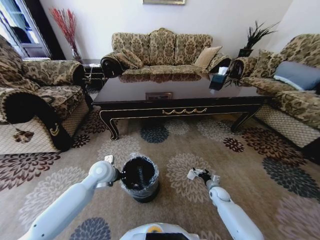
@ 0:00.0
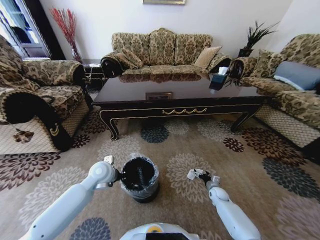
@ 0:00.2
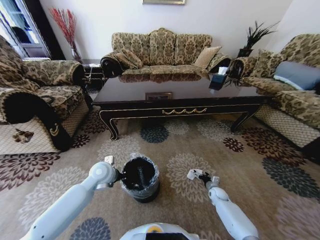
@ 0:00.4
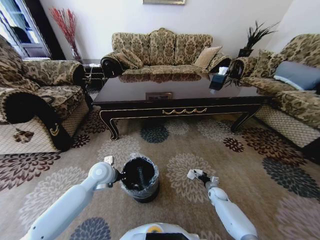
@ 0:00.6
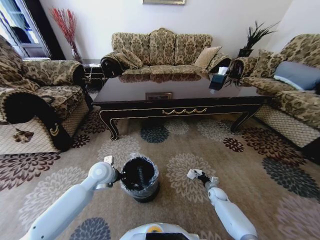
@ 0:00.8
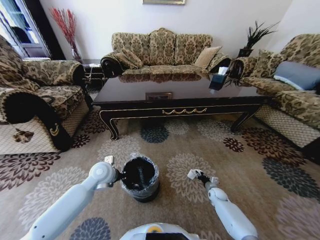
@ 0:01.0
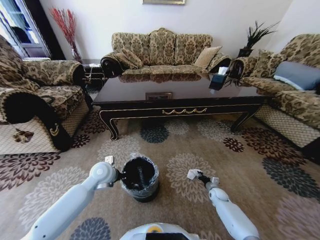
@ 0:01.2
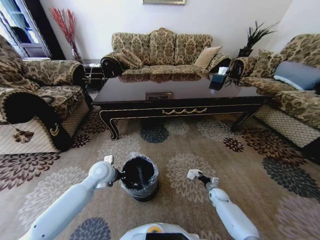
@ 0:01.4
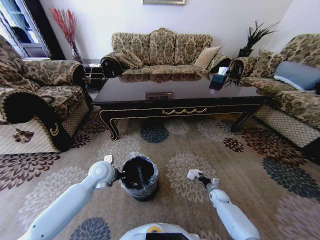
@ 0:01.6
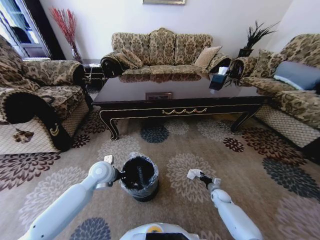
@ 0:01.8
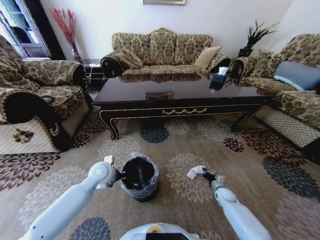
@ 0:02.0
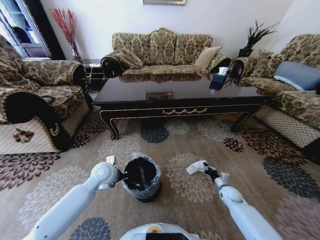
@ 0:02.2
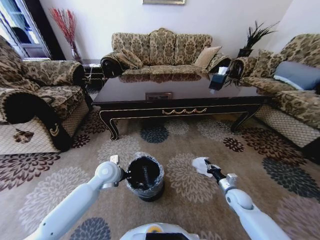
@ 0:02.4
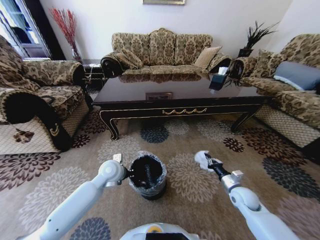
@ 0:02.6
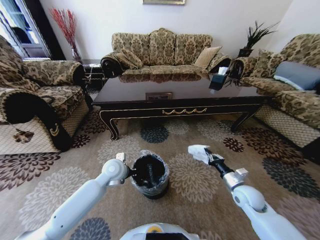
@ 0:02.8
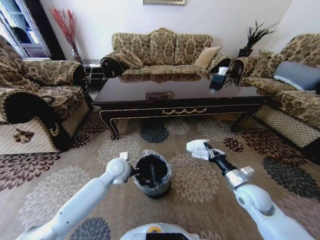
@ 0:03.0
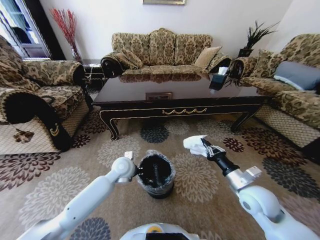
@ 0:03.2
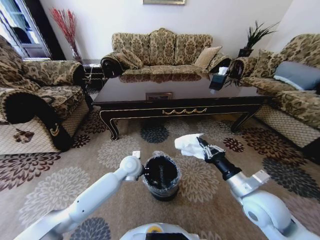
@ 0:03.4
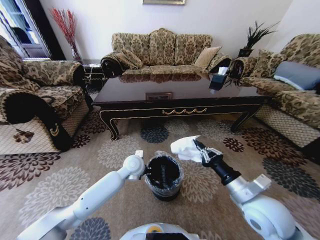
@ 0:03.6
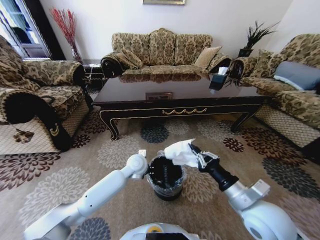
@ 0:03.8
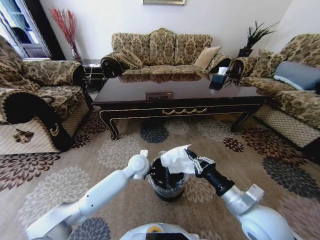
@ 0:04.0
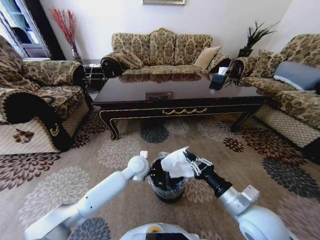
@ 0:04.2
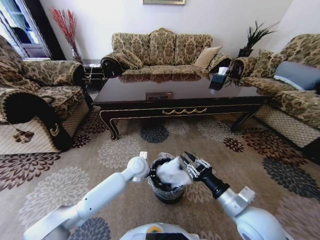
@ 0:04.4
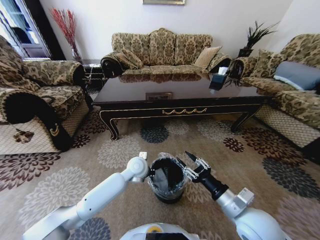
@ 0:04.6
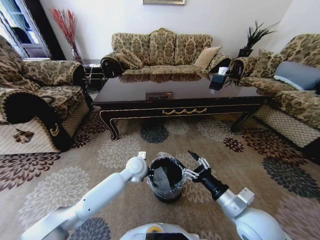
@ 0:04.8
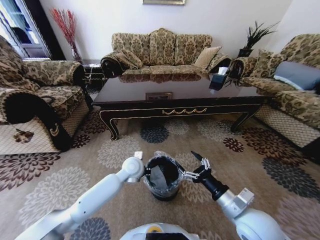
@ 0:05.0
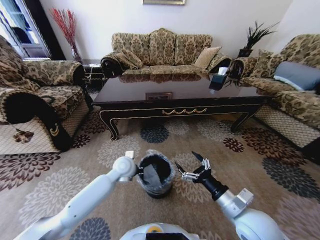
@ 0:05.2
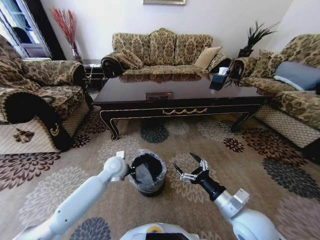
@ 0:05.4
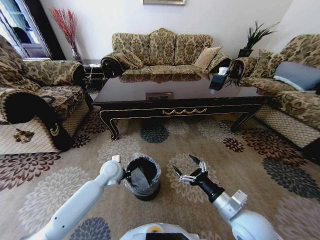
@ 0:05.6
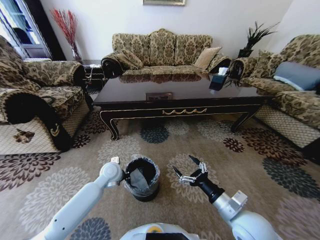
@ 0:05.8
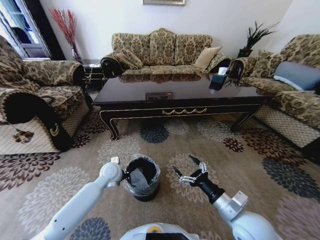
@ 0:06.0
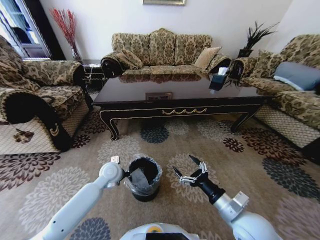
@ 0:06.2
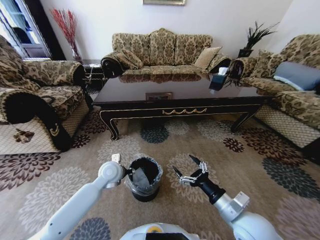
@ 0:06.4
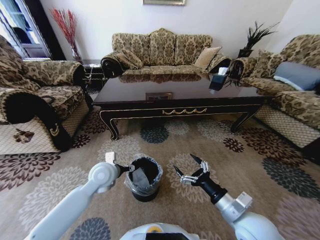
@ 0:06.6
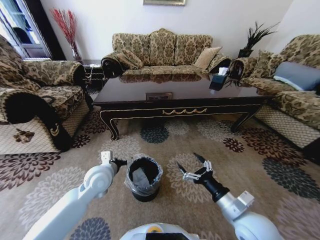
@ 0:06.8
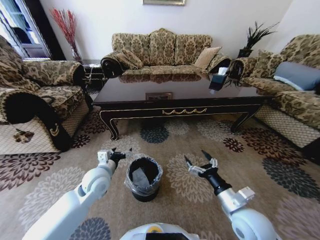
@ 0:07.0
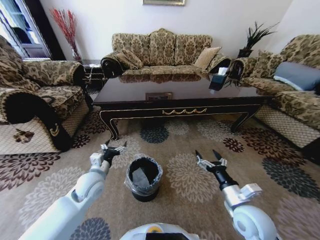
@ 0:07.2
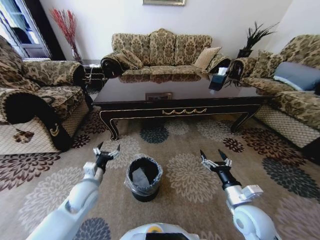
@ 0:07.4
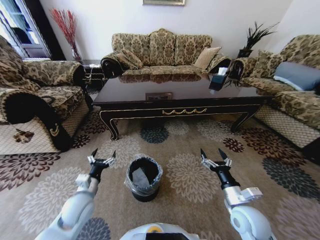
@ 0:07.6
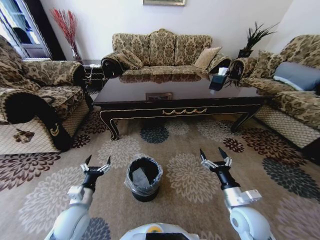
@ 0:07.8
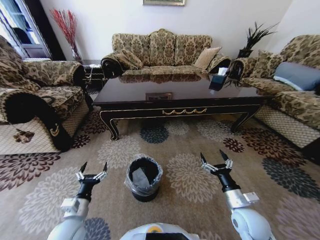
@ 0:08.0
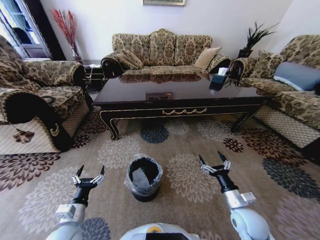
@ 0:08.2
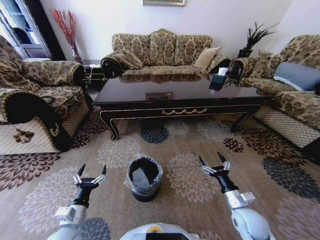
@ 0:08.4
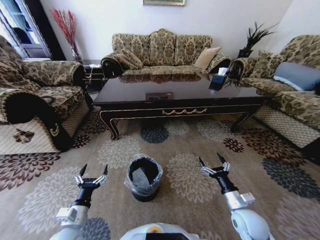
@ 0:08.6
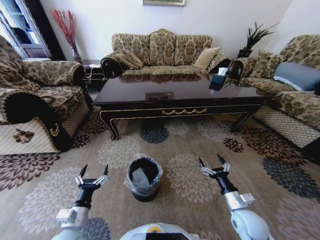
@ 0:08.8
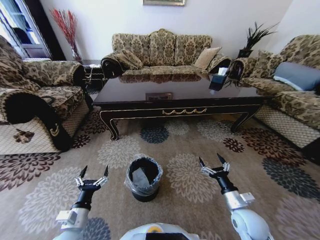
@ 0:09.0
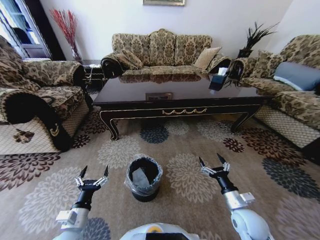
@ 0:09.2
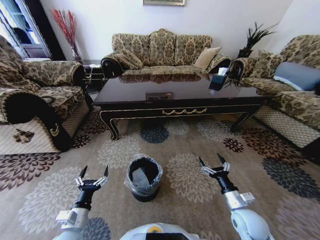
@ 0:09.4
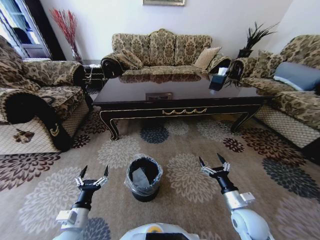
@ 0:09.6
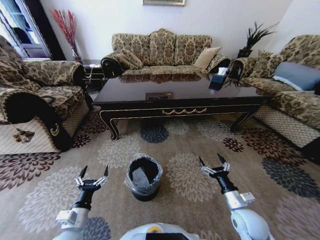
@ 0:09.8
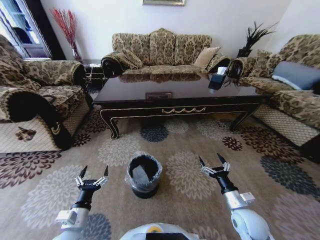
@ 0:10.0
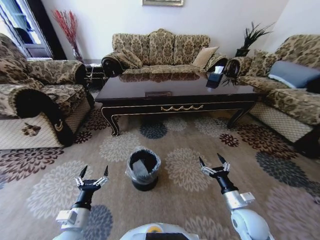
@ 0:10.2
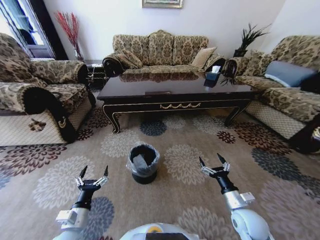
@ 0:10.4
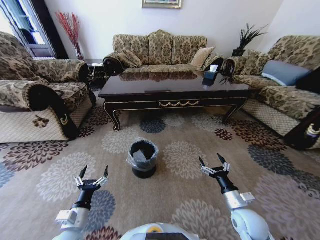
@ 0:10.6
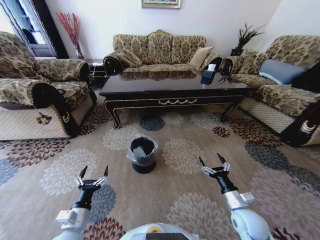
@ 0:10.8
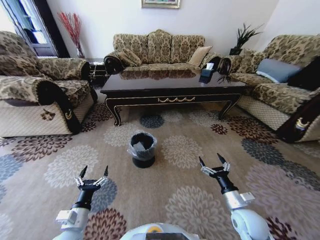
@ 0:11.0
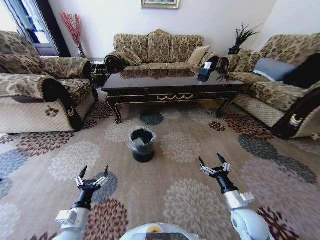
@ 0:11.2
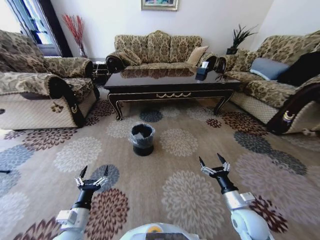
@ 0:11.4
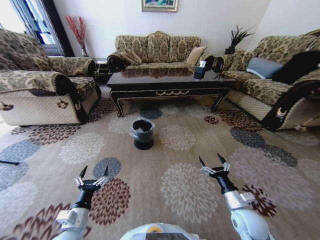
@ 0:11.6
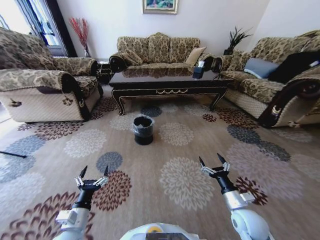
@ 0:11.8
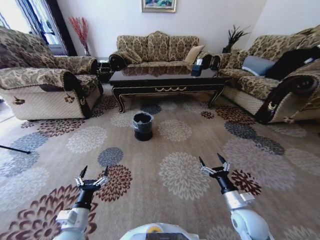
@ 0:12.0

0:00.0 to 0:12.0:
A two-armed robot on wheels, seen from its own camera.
Task of the whole recording: Move to the front of the table and pick up the trash from the floor, then place it into the trash bin.
0:00.0 to 0:01.6: The right gripper closes its fingers.
0:01.6 to 0:03.0: The left gripper heads to the right, covering about 5 cm. Meanwhile the right gripper is displaced upward by some 30 cm.
0:03.0 to 0:04.4: The right gripper moves backward, to the left and upward, approximately 15 cm; the left gripper shifts some 10 cm to the right.
0:04.4 to 0:06.0: The right gripper opens up. Meanwhile the left gripper shifts some 10 cm to the left.
0:06.0 to 0:07.6: The left gripper moves backward and to the left, about 15 cm, and opens its fingers, while the right gripper shifts by about 5 cm.
0:07.6 to 0:09.0: The left gripper shifts some 10 cm backward, while the right gripper is displaced downward by roughly 5 cm.

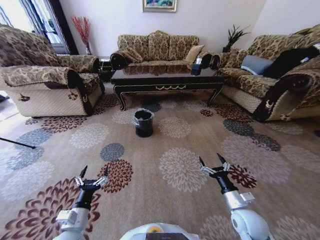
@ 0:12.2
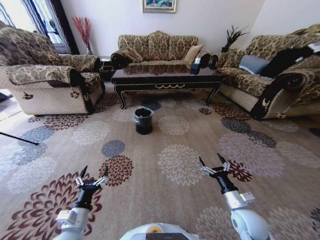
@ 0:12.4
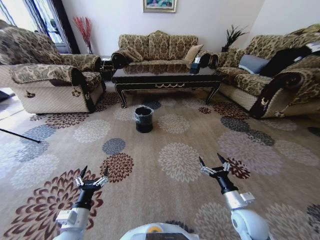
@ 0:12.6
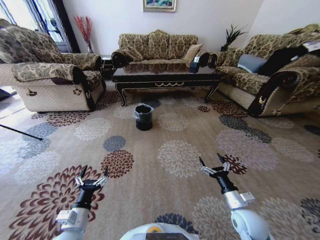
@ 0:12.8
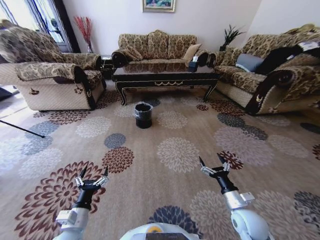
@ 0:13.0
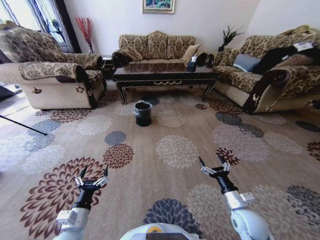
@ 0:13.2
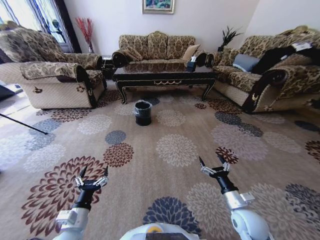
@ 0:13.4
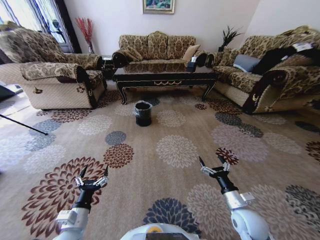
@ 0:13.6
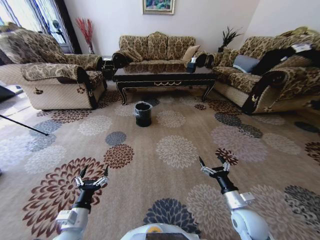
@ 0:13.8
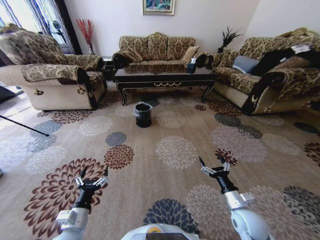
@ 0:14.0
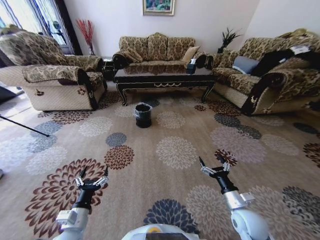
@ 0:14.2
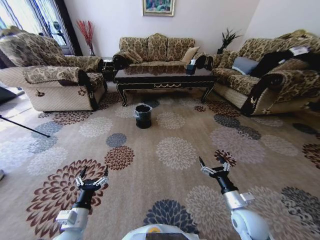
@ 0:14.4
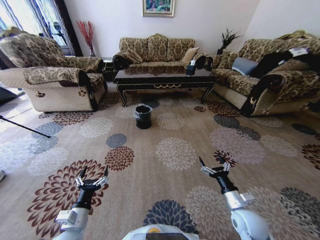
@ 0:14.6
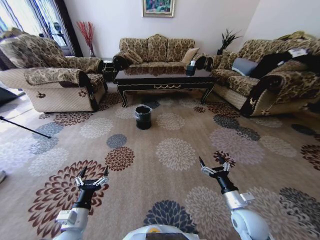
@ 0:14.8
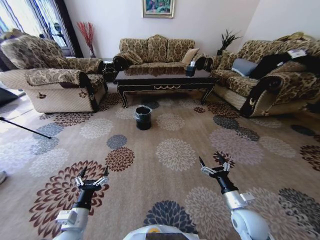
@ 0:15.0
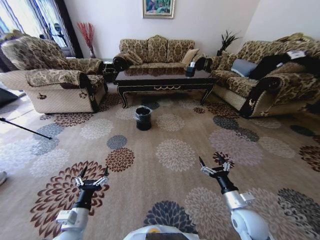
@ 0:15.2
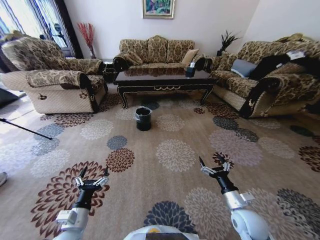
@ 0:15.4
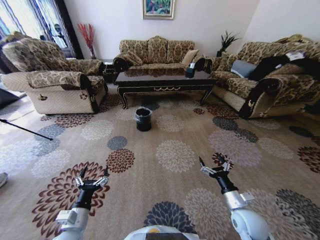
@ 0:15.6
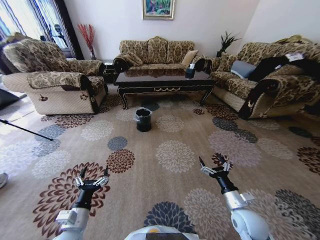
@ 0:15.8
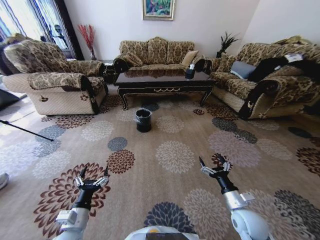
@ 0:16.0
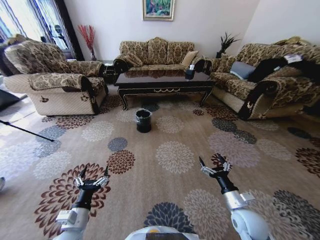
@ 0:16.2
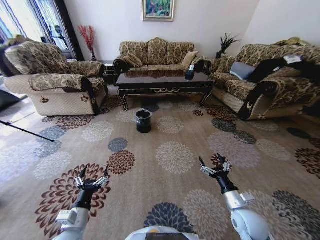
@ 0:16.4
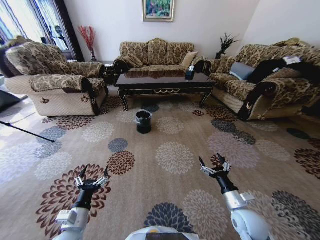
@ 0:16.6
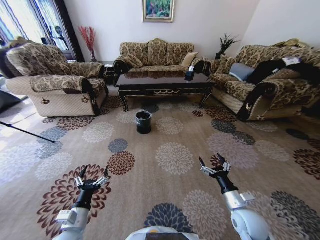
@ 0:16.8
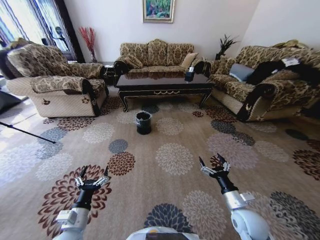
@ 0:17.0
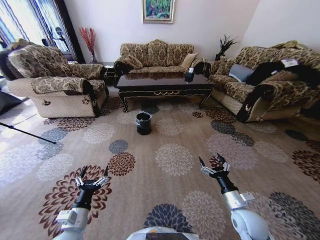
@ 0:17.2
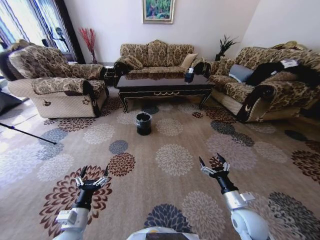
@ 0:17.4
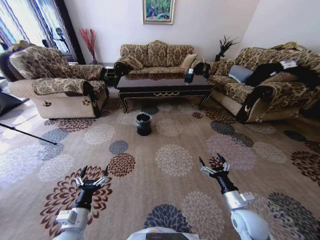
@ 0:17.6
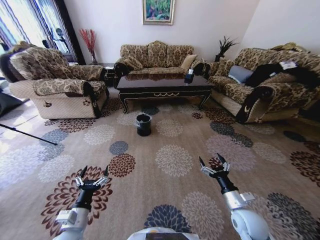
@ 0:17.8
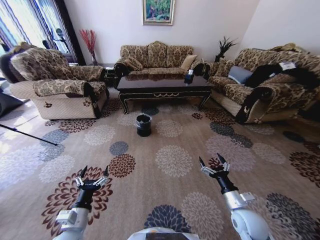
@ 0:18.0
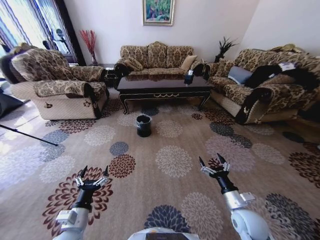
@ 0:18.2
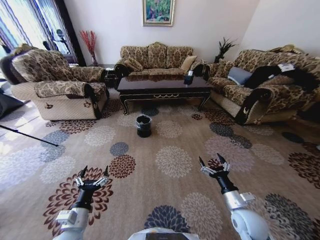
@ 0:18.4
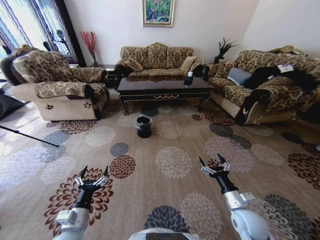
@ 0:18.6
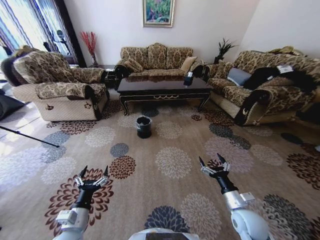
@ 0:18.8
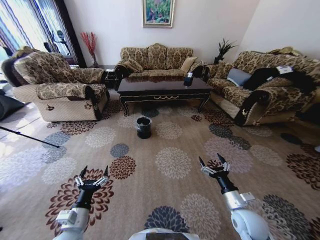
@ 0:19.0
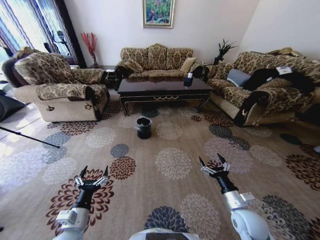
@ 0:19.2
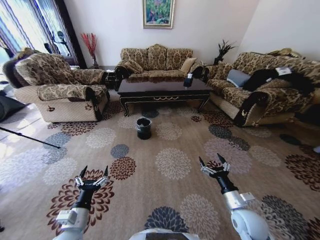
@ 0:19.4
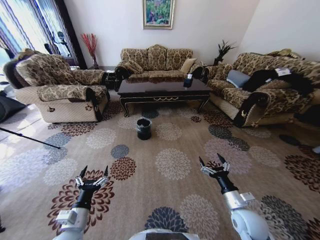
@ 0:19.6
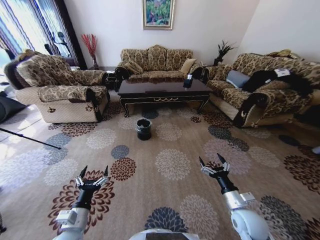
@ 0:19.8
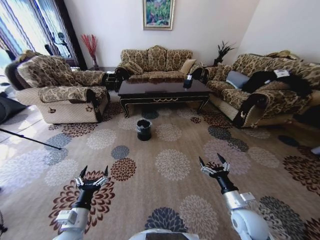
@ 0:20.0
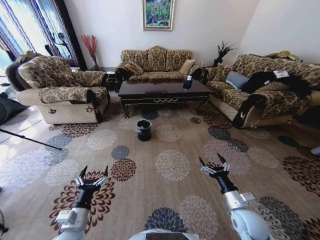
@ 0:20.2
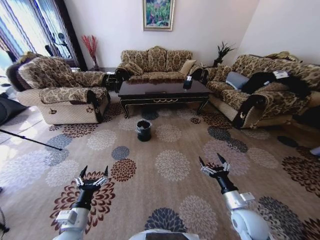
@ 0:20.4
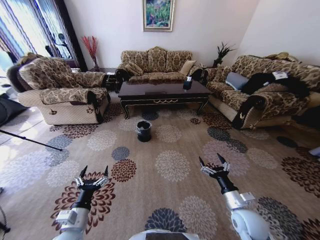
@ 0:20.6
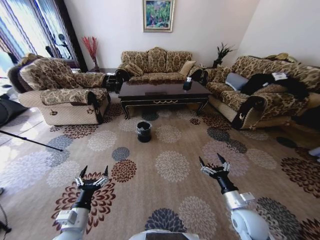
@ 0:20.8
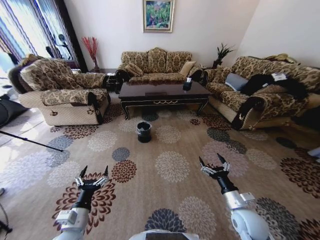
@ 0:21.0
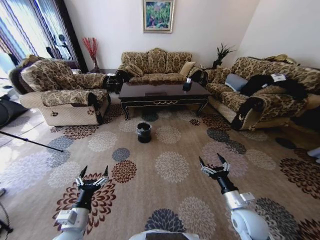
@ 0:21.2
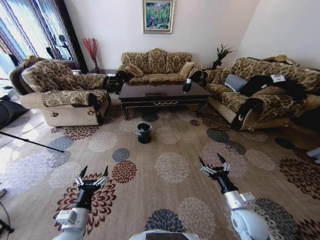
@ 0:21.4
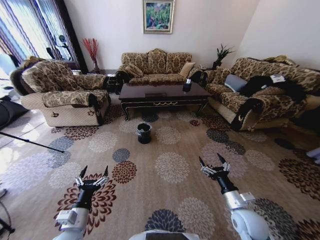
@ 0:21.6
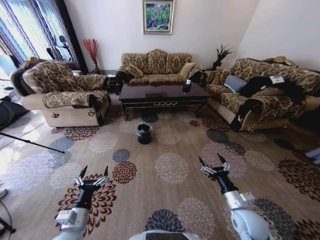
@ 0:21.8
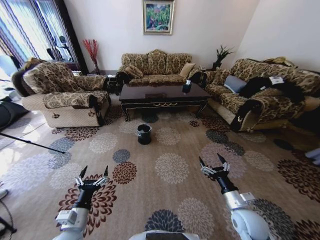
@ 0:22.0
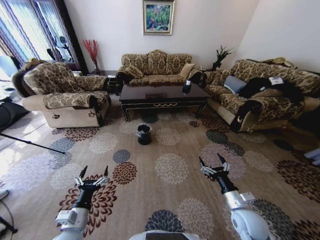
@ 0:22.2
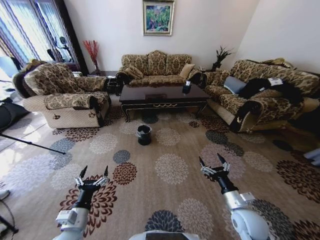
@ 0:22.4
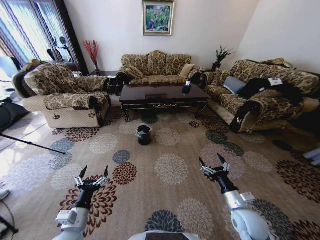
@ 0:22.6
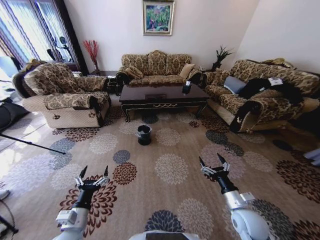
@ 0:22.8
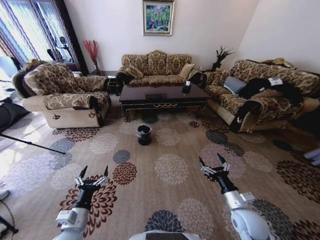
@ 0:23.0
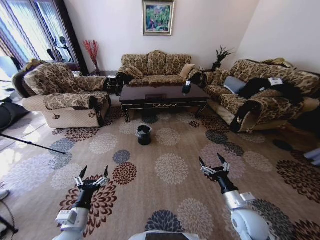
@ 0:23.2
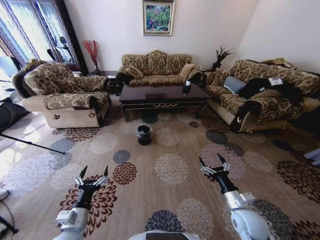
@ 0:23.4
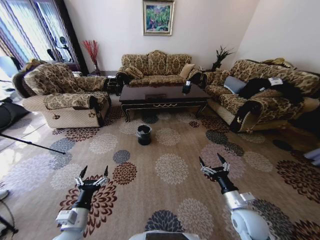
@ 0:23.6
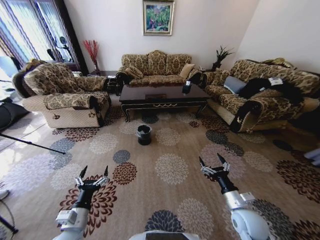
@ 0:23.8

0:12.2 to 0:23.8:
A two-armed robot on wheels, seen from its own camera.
Task of the whole recording: Move to the front of the table and pick up the trash from the floor, then place it into the trash bin.
0:22.4 to 0:23.8: Neither gripper changes place.
